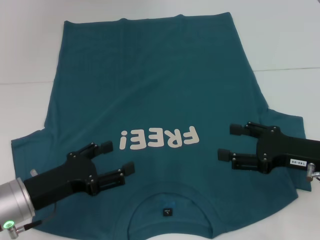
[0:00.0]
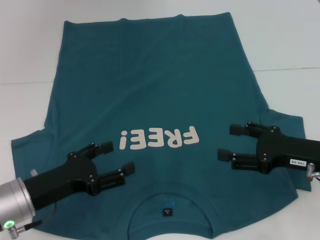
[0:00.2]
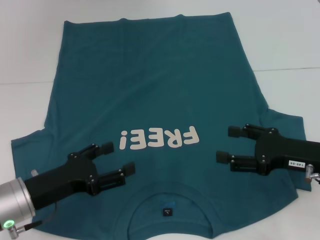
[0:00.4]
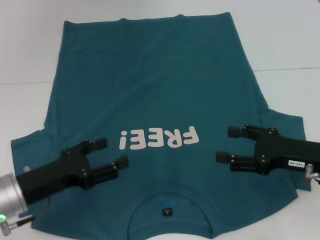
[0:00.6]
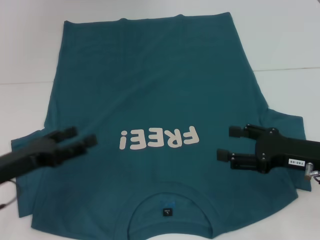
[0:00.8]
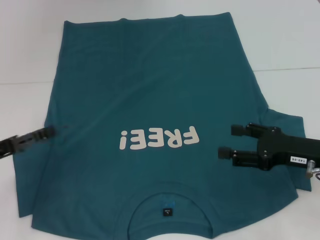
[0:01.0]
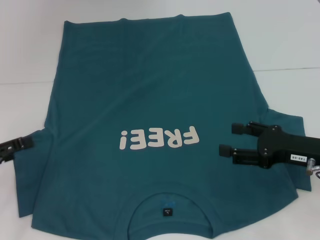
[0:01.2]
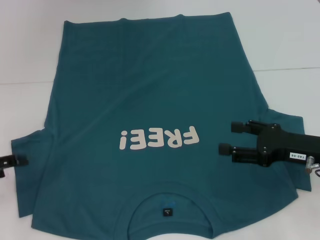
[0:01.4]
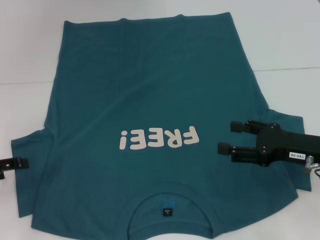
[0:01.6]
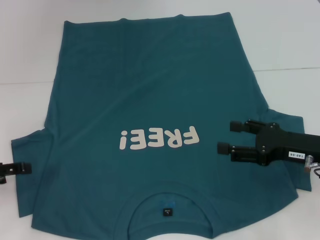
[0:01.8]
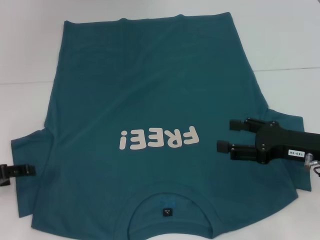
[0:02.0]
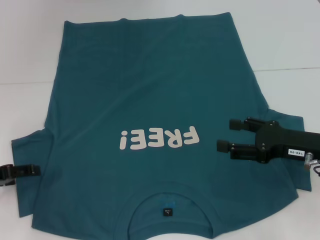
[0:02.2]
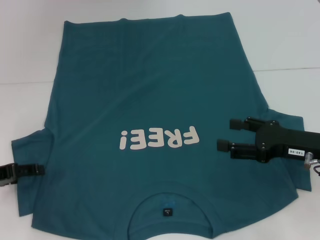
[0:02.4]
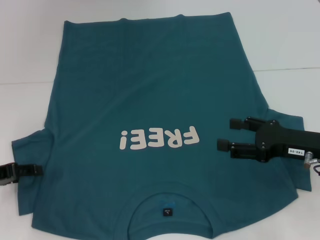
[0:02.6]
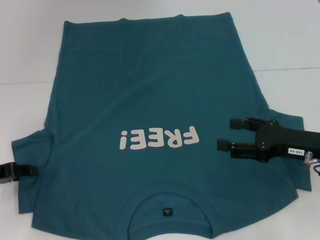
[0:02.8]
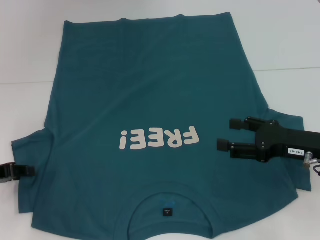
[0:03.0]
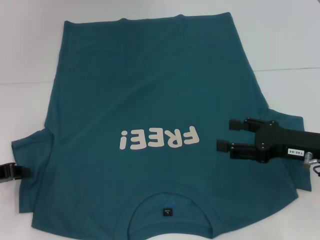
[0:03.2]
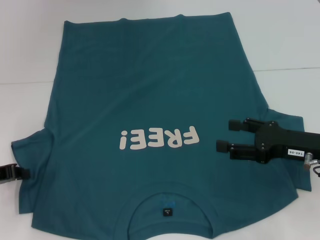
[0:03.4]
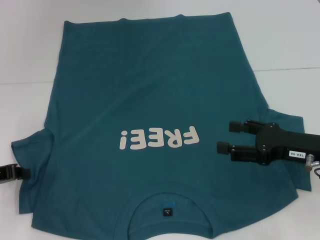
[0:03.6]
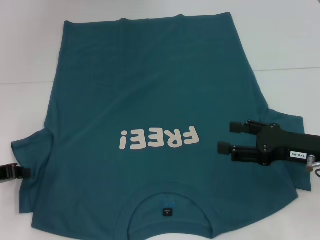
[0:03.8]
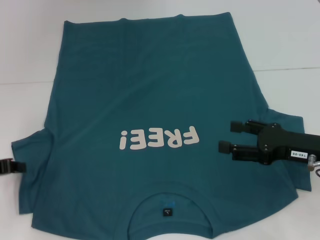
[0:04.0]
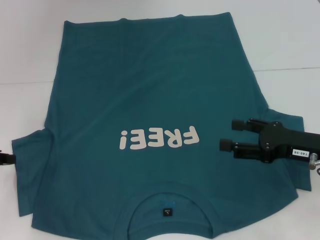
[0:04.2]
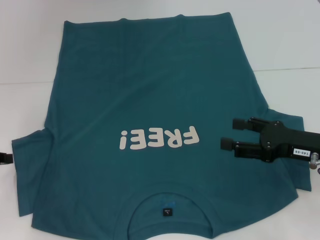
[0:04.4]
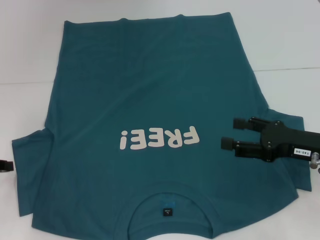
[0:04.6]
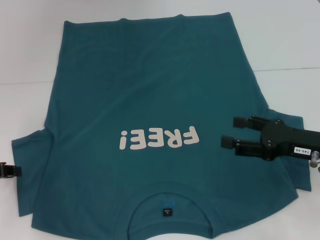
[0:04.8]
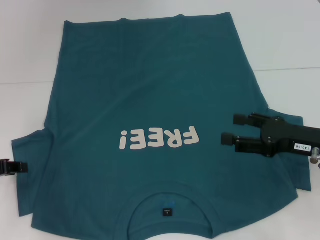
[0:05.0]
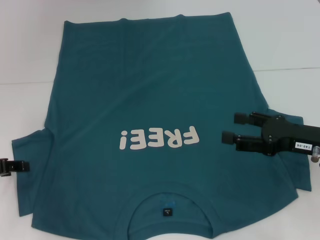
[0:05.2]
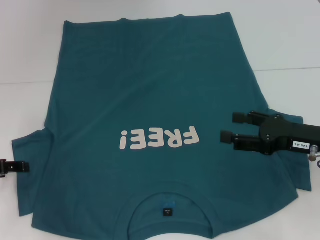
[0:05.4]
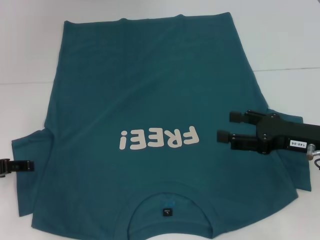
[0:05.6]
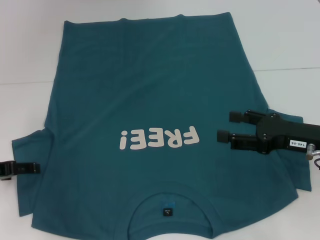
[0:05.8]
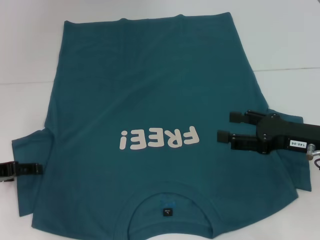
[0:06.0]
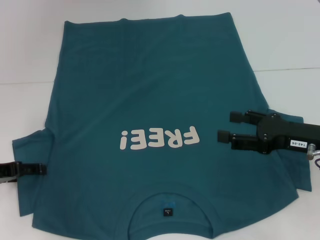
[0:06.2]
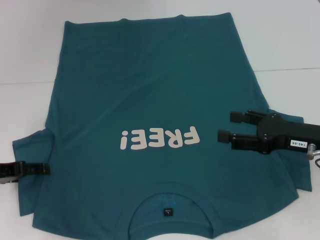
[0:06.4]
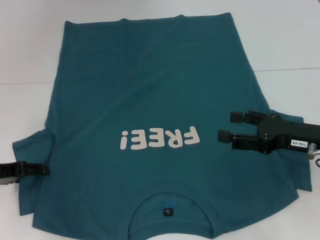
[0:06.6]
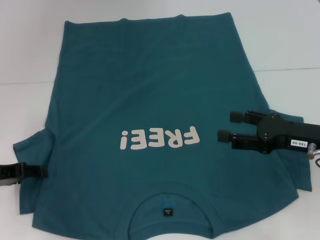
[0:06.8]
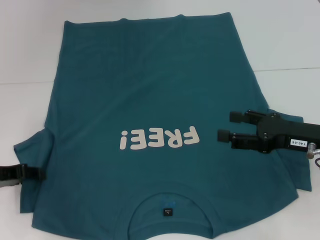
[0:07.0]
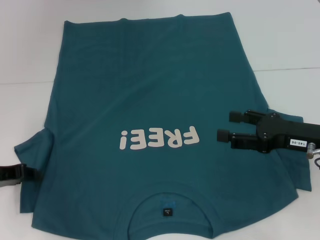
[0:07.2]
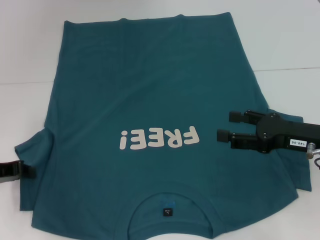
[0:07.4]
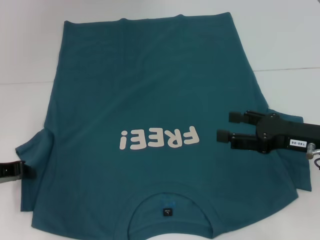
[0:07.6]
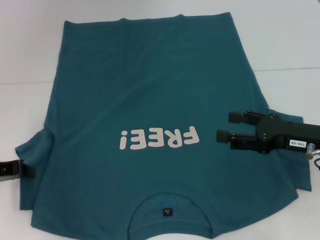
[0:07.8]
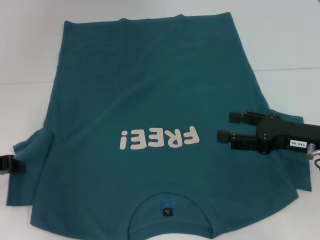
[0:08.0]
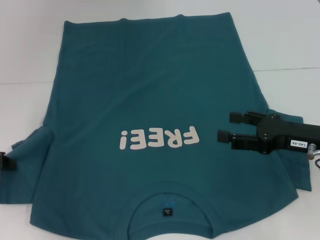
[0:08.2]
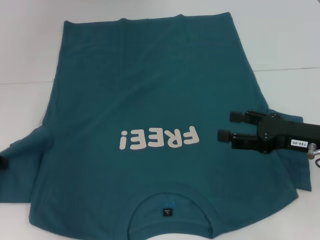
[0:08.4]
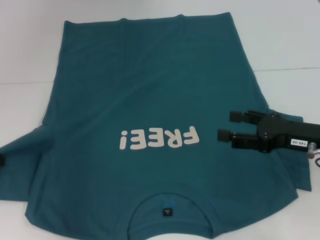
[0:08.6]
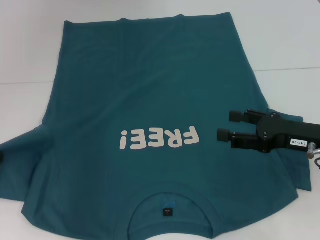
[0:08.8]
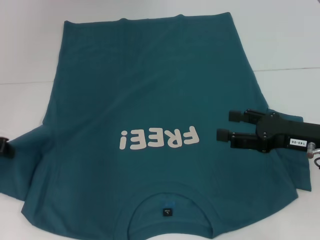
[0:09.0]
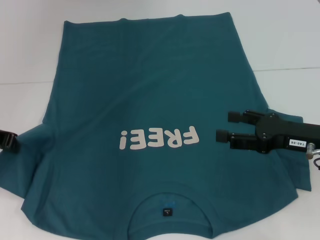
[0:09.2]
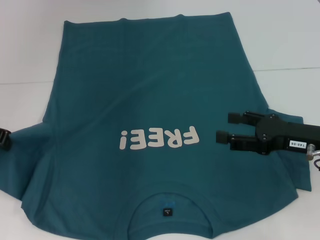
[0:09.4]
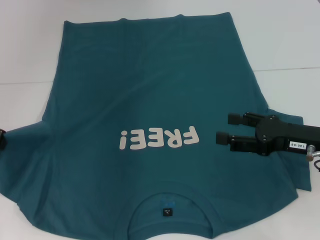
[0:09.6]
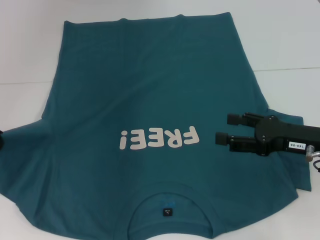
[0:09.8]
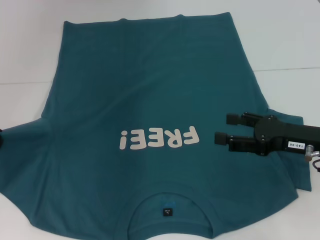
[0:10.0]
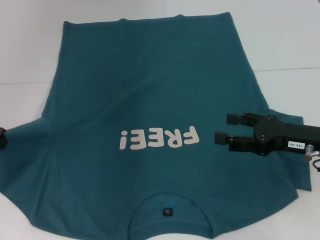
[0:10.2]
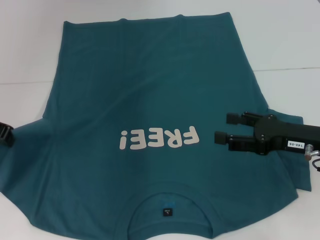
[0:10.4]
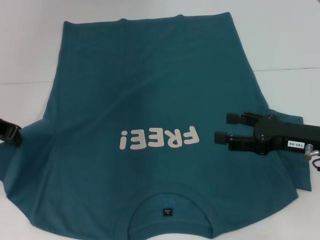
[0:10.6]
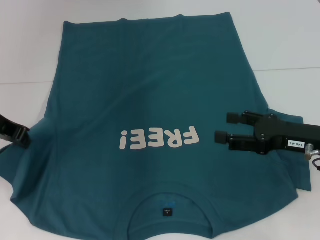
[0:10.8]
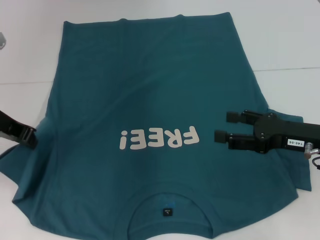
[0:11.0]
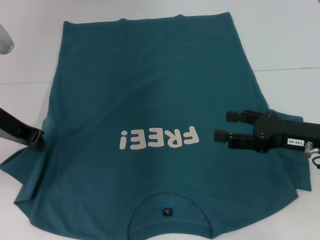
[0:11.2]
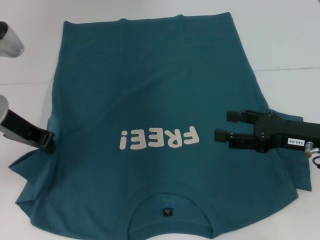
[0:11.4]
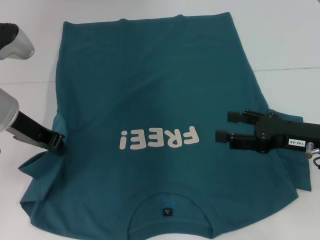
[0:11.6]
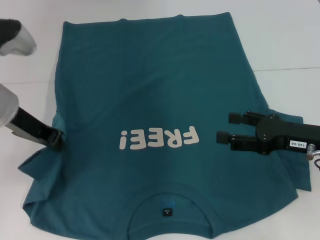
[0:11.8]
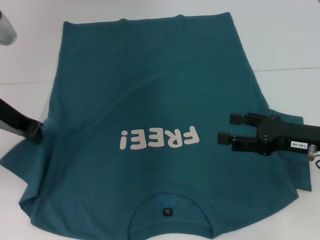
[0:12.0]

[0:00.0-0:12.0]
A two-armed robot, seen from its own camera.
0:00.0 to 0:01.6: The left gripper moves to the left, approximately 15 cm.
0:01.6 to 0:03.0: The left gripper closes up.
0:03.0 to 0:04.4: The left gripper closes its fingers.
0:04.4 to 0:06.0: The left gripper opens.
0:06.0 to 0:07.6: The left gripper closes.
0:07.6 to 0:09.0: The left gripper travels upward by approximately 5 cm.
0:09.0 to 0:10.4: The left gripper shifts by some 5 cm.

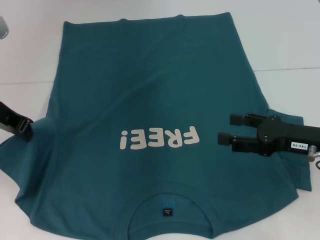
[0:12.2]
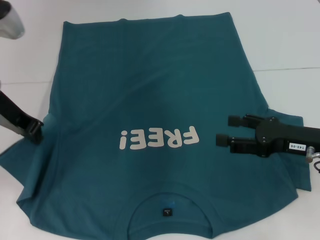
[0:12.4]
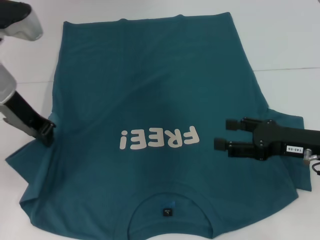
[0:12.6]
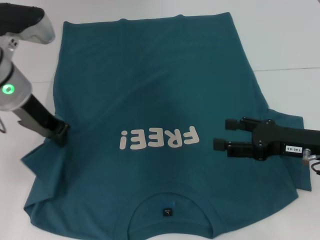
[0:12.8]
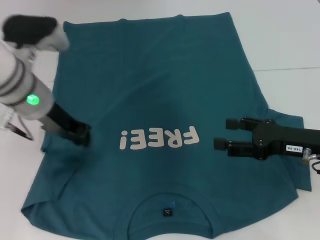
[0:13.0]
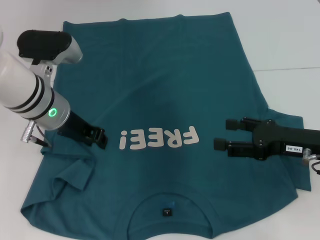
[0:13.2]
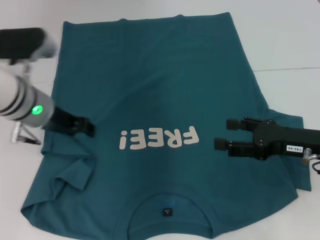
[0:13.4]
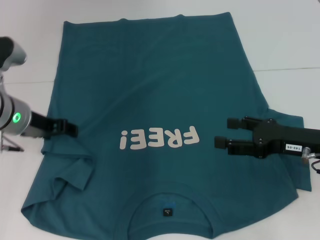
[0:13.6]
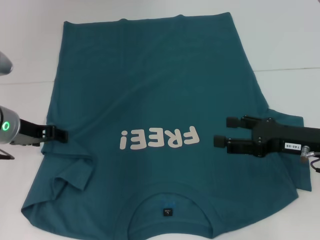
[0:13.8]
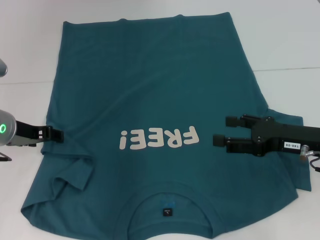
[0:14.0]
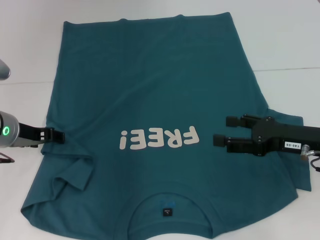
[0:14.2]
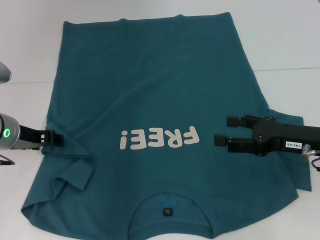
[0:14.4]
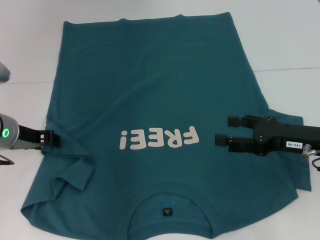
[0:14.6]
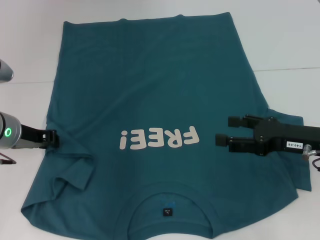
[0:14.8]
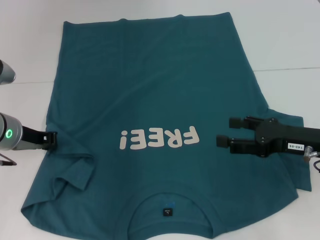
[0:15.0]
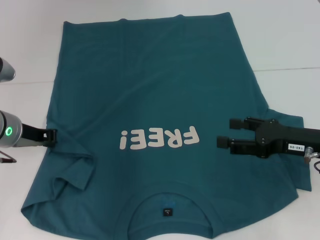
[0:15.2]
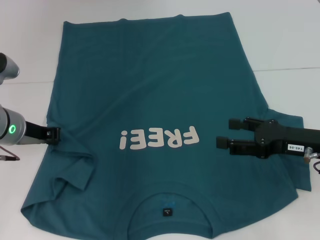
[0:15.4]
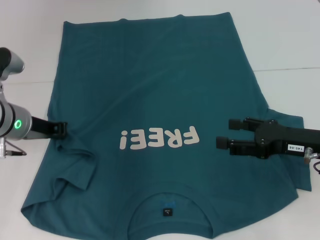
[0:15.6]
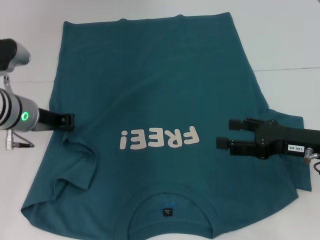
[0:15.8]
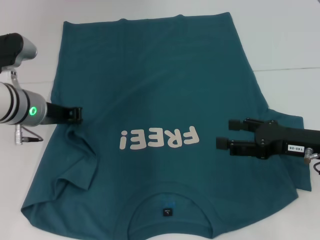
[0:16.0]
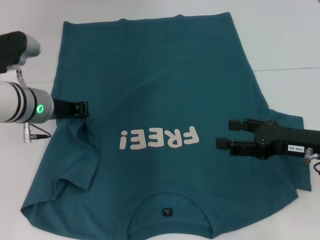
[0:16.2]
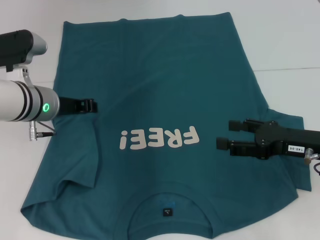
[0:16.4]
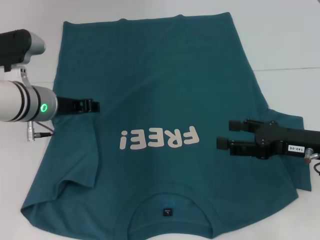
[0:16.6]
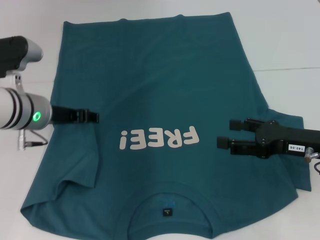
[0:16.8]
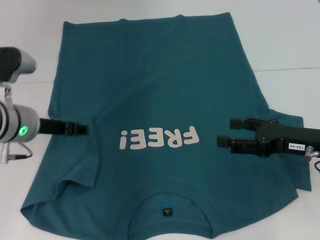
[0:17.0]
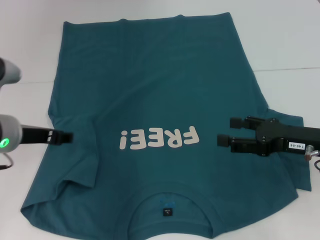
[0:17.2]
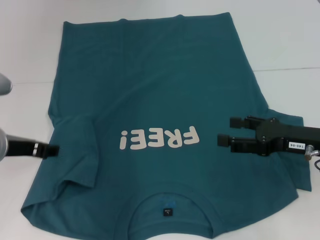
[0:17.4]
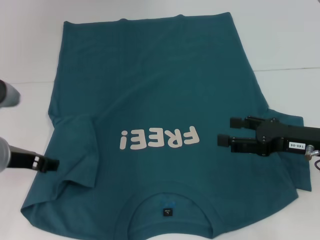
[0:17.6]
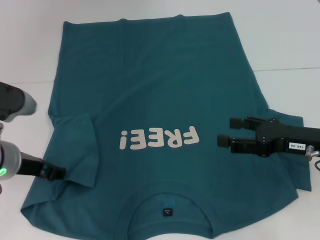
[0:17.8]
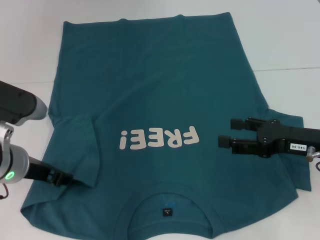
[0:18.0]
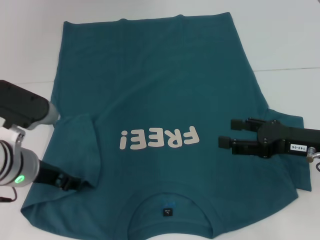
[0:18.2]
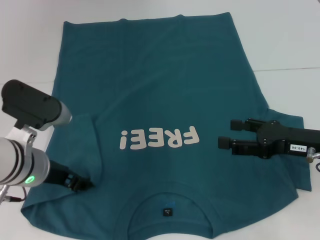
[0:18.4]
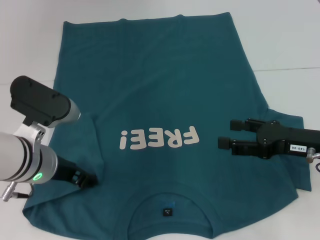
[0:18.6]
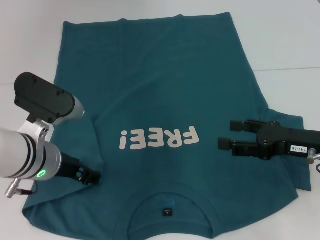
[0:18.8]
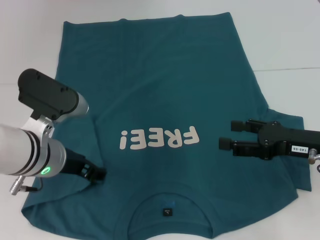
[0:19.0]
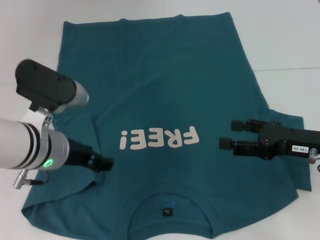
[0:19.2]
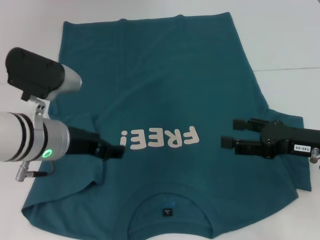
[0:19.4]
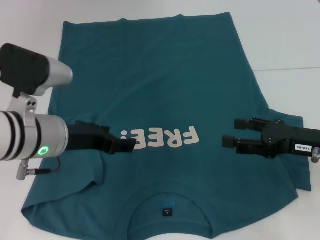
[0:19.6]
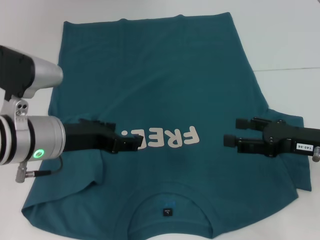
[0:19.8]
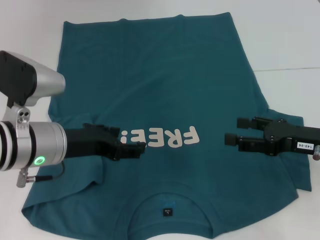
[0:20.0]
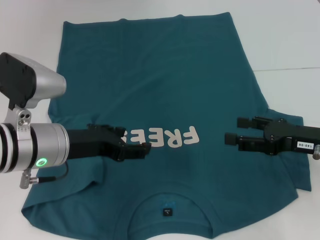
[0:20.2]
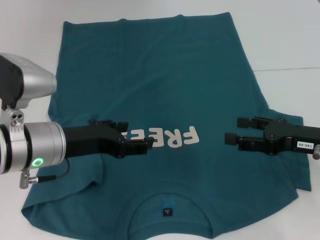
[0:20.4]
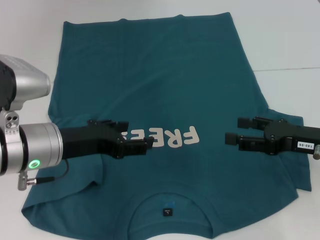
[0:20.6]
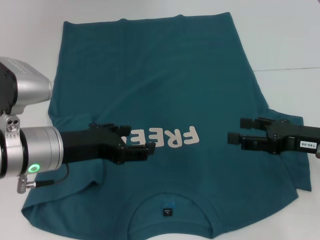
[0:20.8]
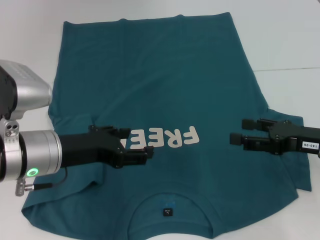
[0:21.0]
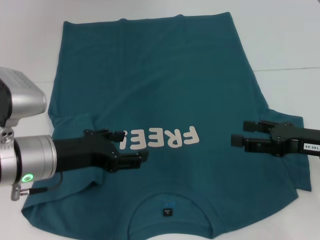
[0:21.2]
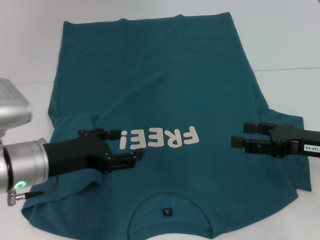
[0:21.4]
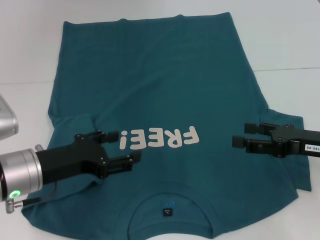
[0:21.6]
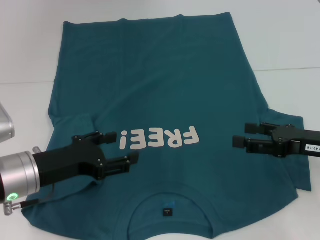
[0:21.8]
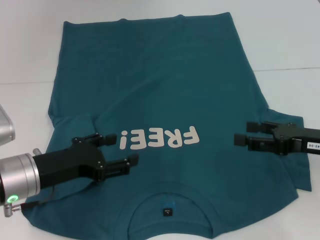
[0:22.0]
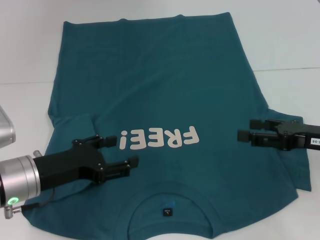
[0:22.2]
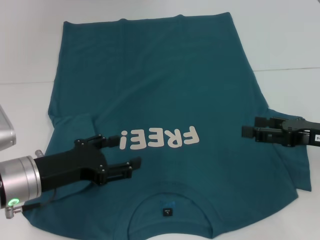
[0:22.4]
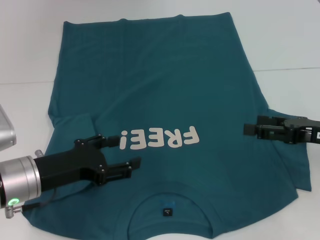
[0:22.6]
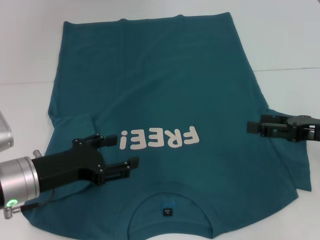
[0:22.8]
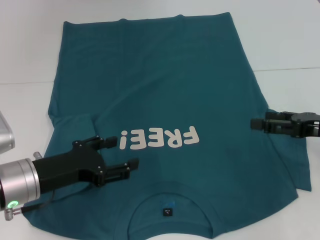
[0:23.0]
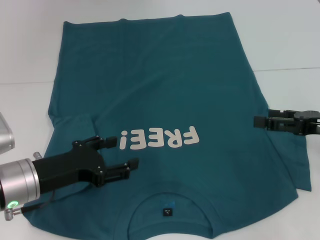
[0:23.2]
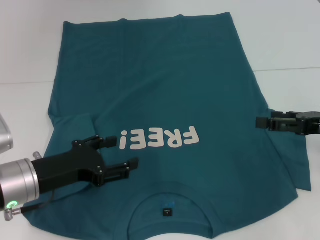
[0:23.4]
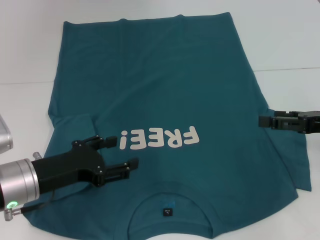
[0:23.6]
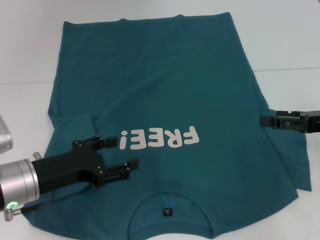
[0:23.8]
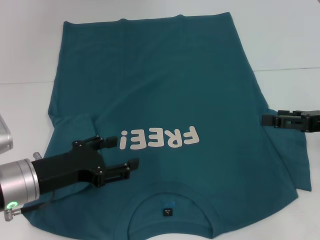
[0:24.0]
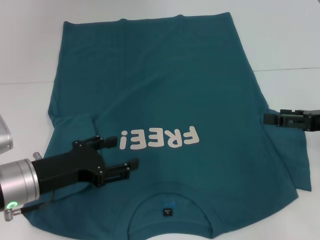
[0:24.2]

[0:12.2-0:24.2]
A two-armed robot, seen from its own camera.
Step, 0:12.2 to 0:19.2: Fold the bottom left sleeve with your left hand.
0:12.2 to 0:13.8: The left gripper travels downward by roughly 10 cm, and opens its fingers.
0:13.8 to 0:15.2: The left gripper closes up.
0:15.2 to 0:16.6: The left gripper moves roughly 5 cm.
0:16.6 to 0:18.2: The left gripper shifts about 10 cm backward, and opens its fingers.
0:18.2 to 0:19.8: The left gripper changes place by roughly 5 cm.
0:19.8 to 0:21.2: There are only small adjustments of the grippers.
0:21.2 to 0:24.2: The grippers move only a little.
